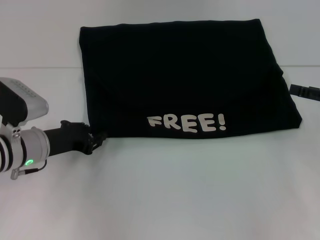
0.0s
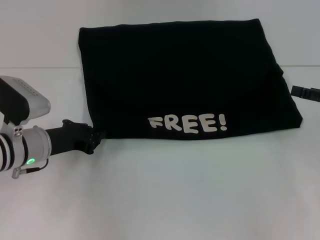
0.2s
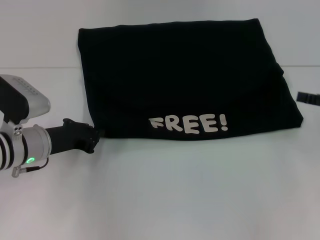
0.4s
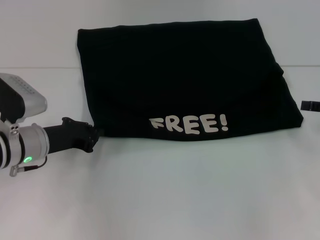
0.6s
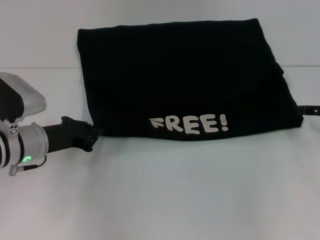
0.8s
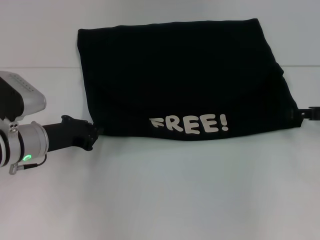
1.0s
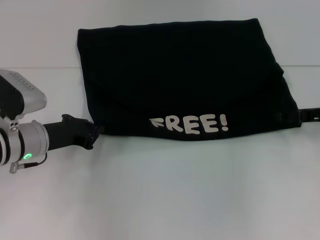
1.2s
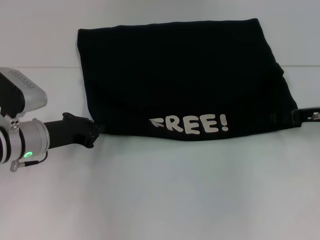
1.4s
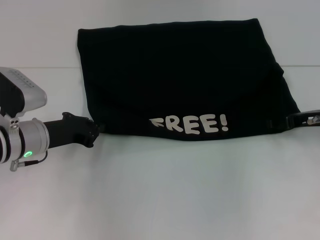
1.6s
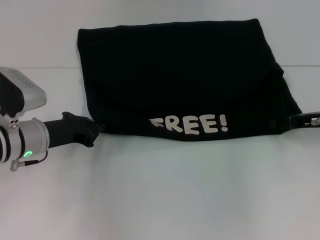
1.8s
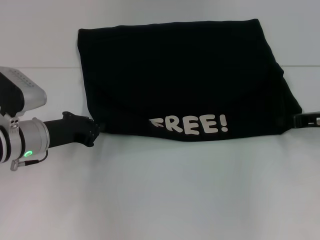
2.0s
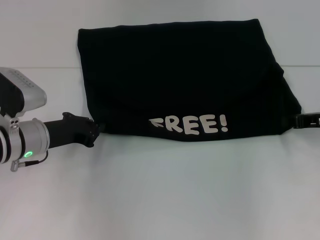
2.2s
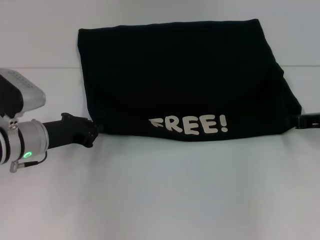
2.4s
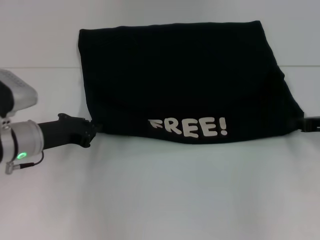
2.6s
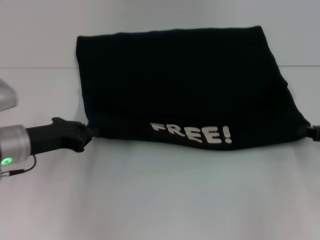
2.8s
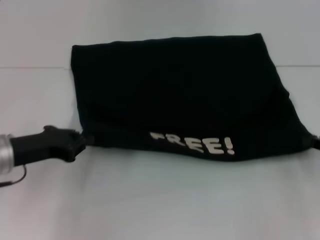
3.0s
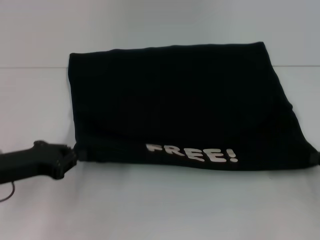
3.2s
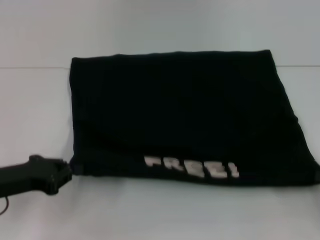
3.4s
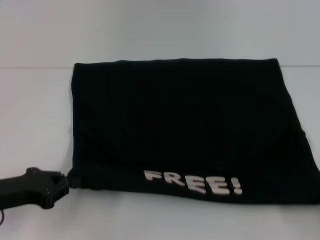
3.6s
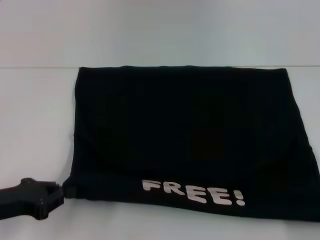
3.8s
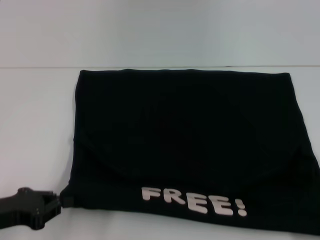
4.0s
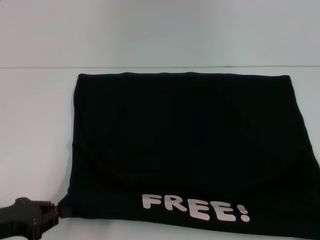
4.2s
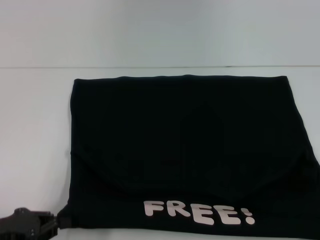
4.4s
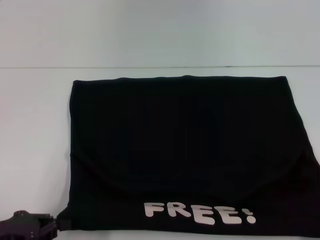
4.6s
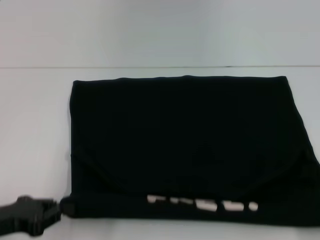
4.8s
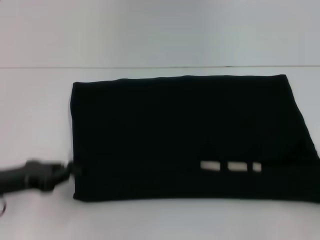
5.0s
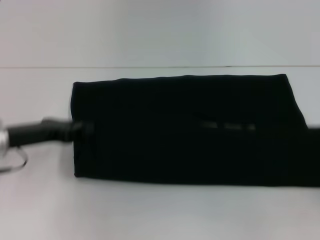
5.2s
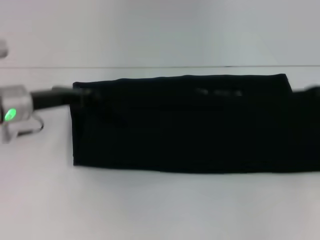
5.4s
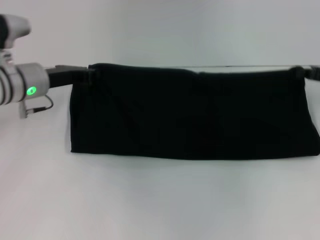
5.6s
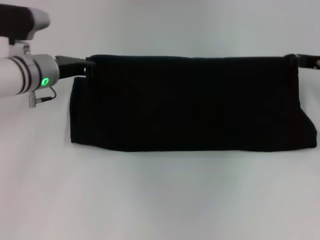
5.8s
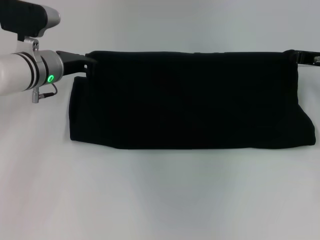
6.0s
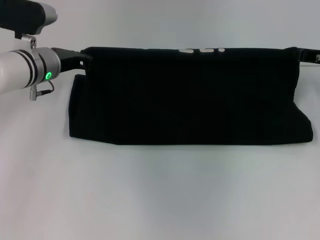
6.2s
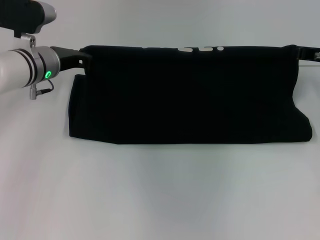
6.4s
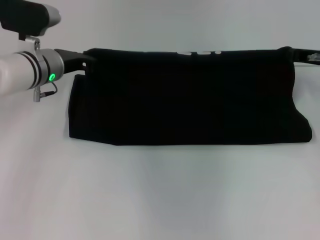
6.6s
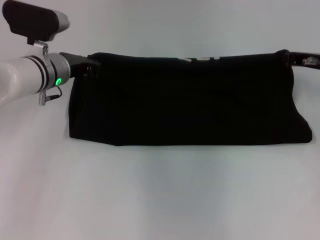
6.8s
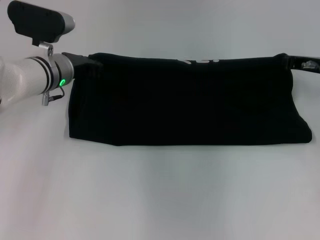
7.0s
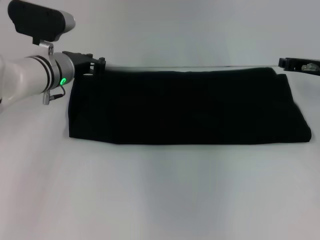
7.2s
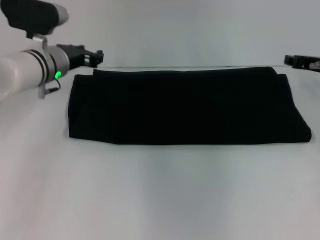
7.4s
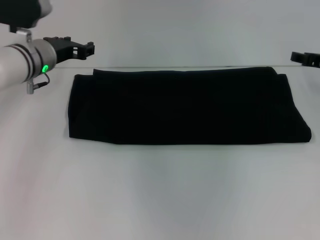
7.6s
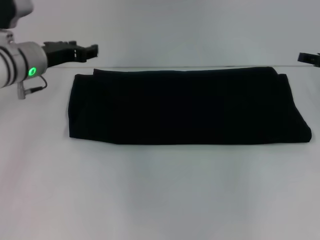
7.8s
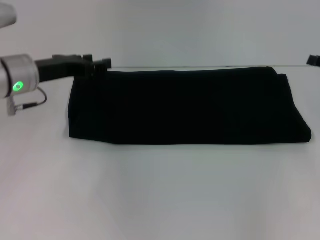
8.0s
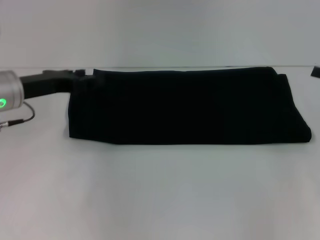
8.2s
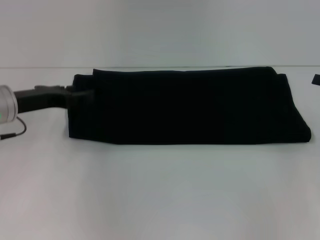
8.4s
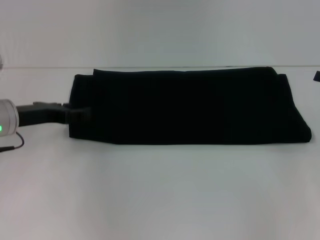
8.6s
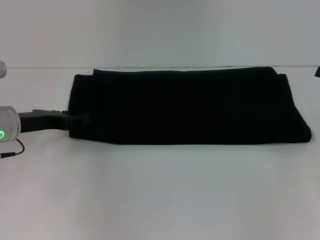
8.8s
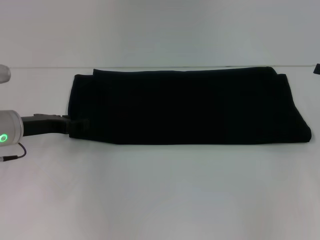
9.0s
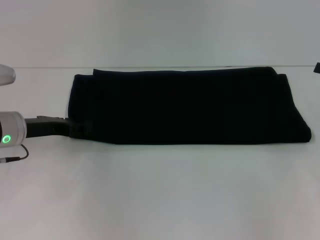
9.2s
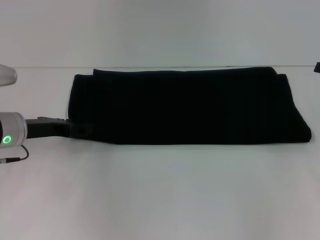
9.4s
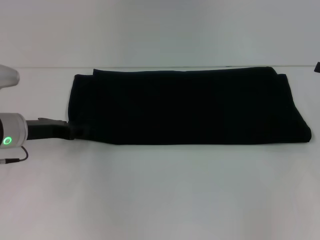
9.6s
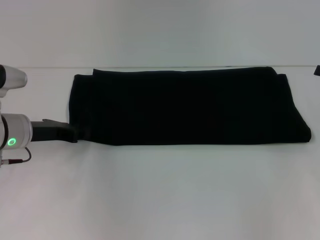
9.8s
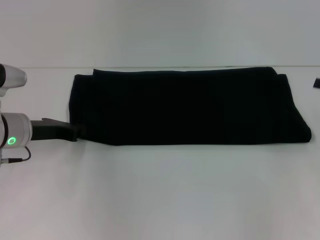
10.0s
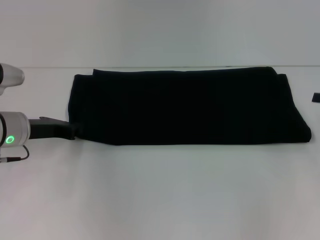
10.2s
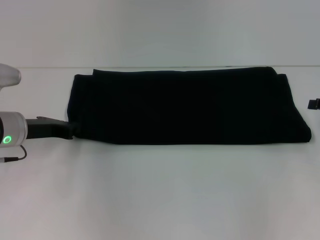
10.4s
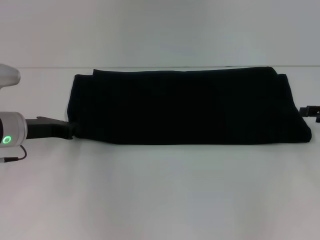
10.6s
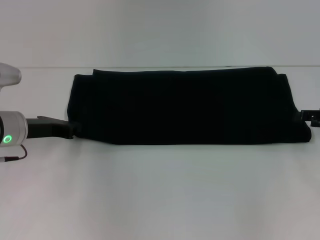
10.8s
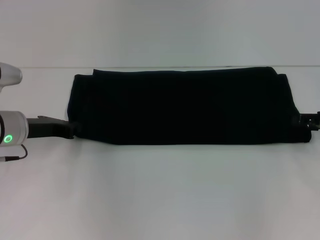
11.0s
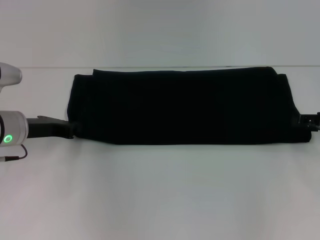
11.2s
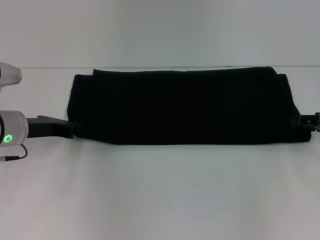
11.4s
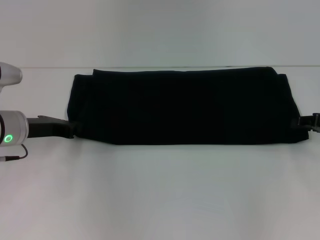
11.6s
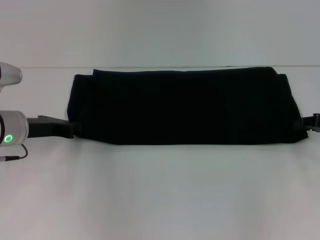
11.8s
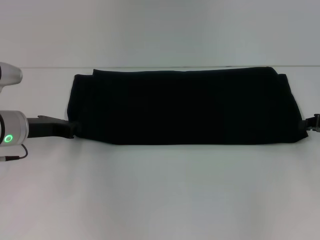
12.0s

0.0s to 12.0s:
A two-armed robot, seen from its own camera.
Step, 0.0s to 4.4s: Pull the clothes with your left hand.
Step, 0.0s to 4.4s: Pull the clothes with your right hand.
Step, 4.6s to 7.2s: Fold the clothes with your right hand.
0.0s to 1.6s: The right gripper shifts some 5 cm to the left; the left gripper closes up.
1.6s to 3.0s: The right gripper travels backward and to the right by roughly 10 cm, and closes its fingers. Meanwhile the left gripper ends up some 5 cm from where it was.
3.0s to 4.4s: The left gripper goes roughly 10 cm backward. Meanwhile the right gripper moves backward, about 15 cm.
4.4s to 6.0s: Both grippers travel together forward, roughly 30 cm.
6.0s to 7.6s: The left gripper opens up. The right gripper opens up.
7.6s to 9.0s: The left gripper moves backward and to the left, roughly 10 cm, while the right gripper moves backward and to the right, roughly 10 cm.
9.0s to 10.4s: The left gripper closes.
10.4s to 12.0s: The right gripper closes up.

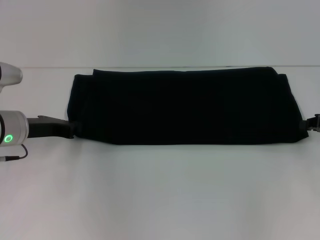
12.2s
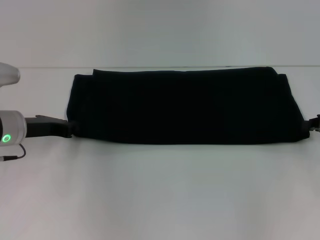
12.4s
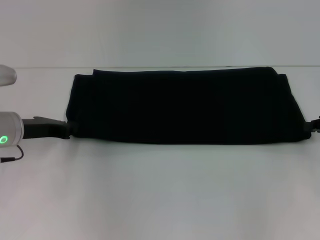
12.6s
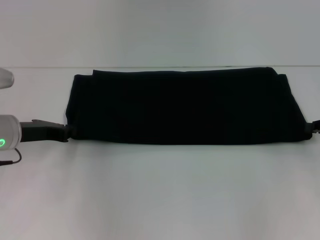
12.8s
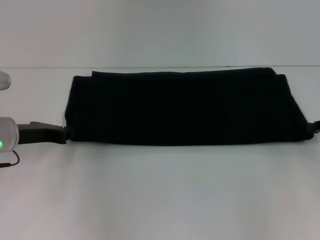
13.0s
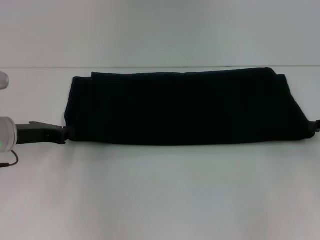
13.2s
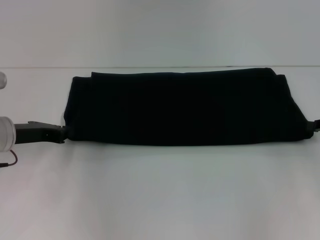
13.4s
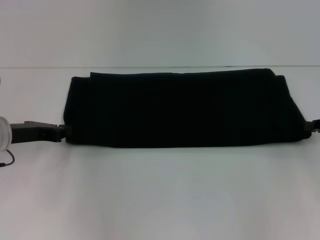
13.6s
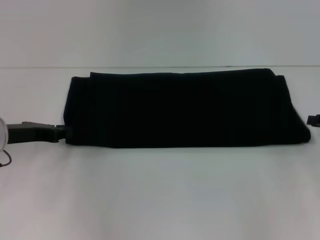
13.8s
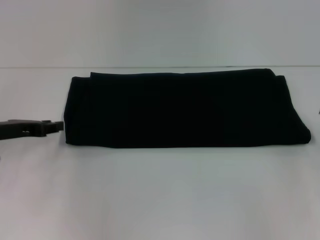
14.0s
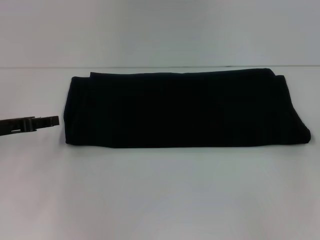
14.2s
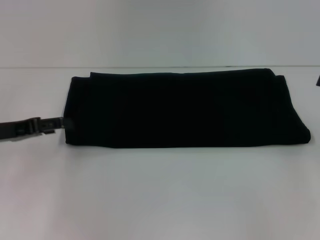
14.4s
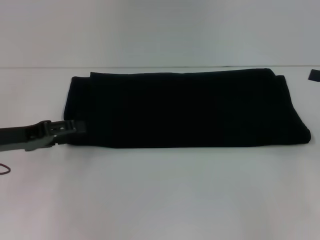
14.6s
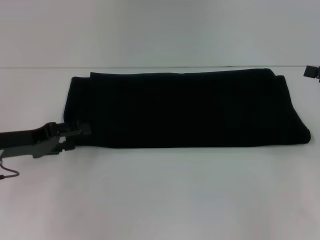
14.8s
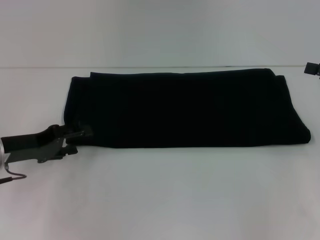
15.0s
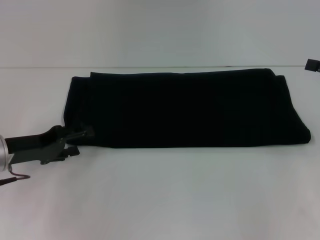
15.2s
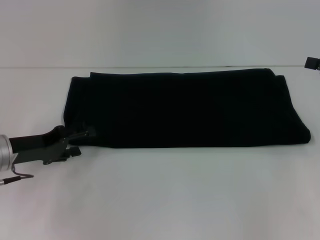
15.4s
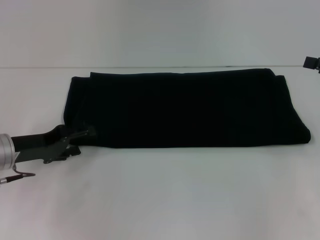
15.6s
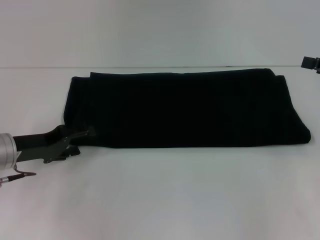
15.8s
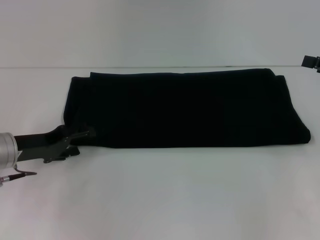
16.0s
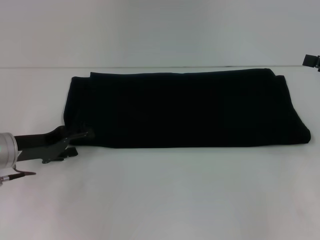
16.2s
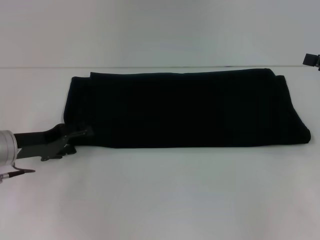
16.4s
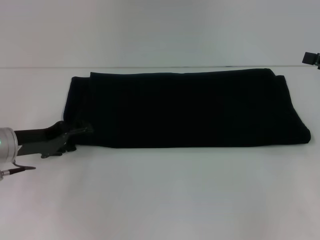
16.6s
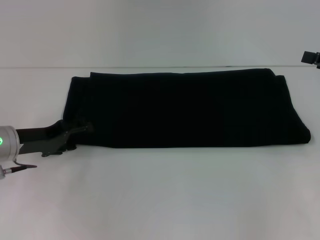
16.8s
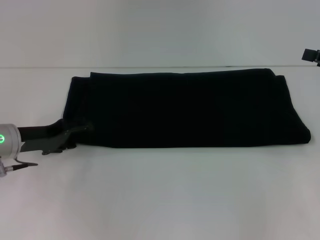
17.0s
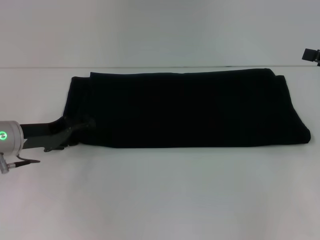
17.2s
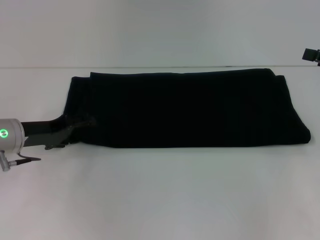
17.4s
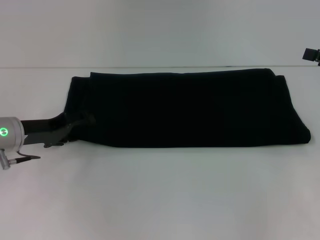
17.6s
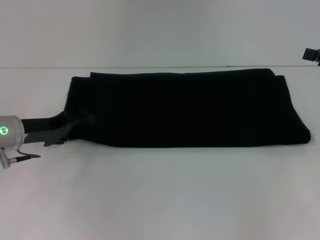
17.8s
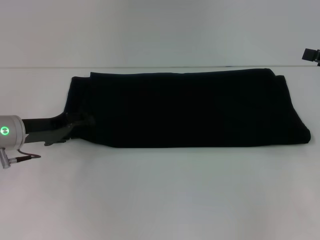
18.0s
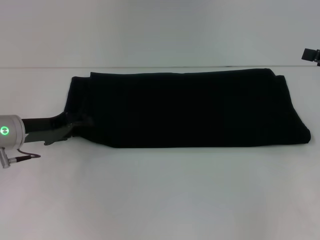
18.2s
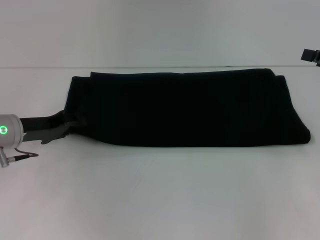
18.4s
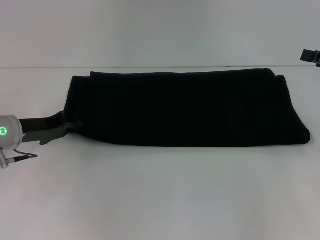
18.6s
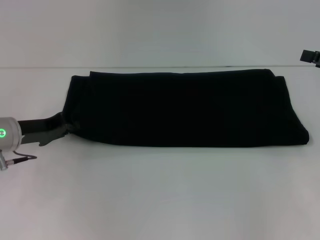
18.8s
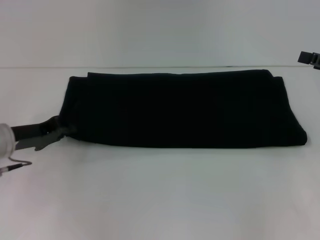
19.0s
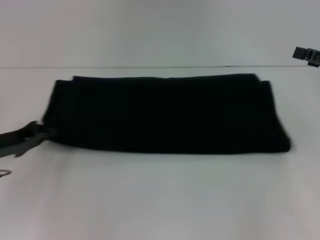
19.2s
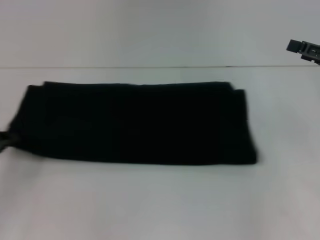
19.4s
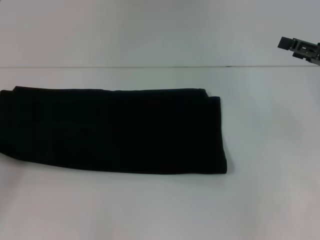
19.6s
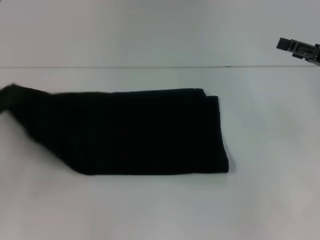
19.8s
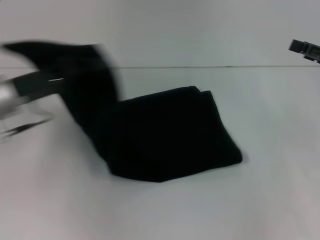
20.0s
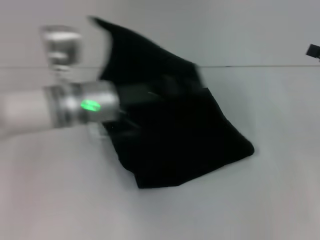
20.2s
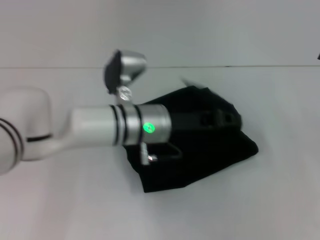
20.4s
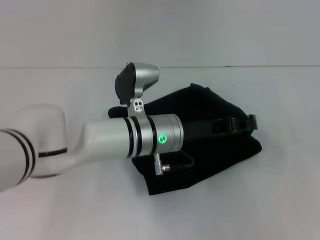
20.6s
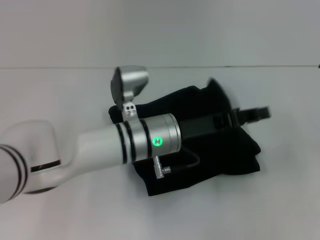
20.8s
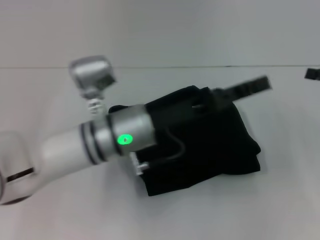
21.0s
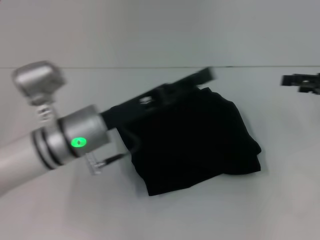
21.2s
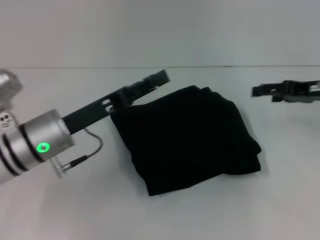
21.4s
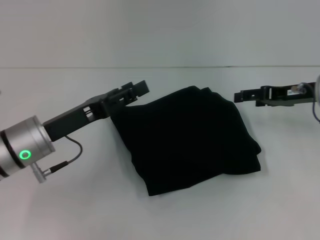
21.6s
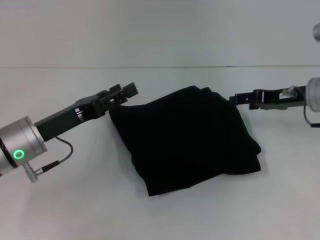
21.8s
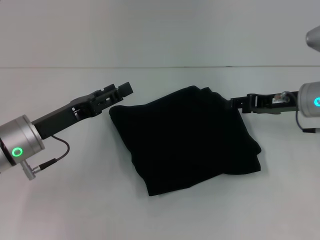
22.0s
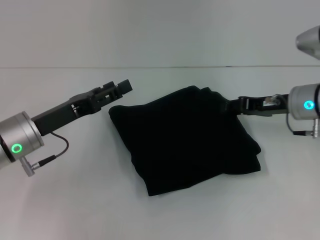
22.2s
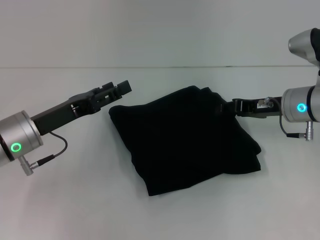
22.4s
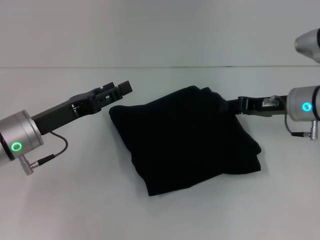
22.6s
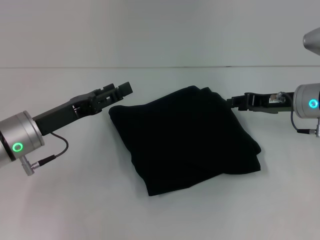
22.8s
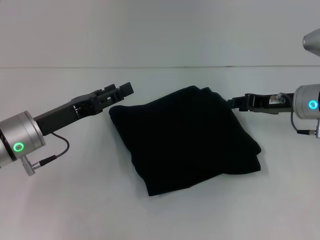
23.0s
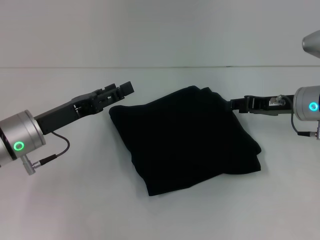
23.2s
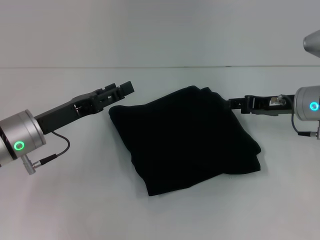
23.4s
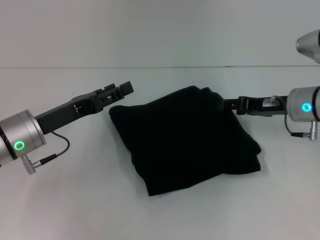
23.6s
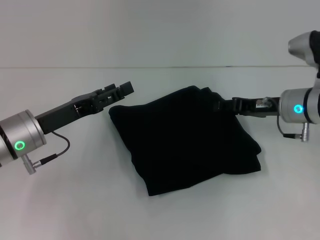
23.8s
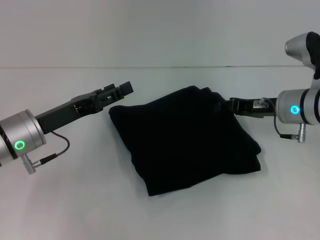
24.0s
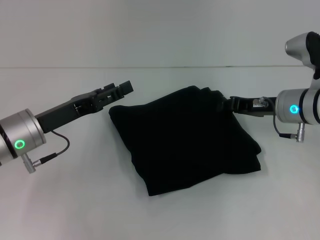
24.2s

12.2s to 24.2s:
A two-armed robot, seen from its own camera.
Step, 12.2s to 20.8s: Fold the clothes with your left hand.
12.2s to 13.8s: The grippers stay close to where they were, moving slightly.
13.8s to 15.2s: The left gripper opens up.
15.2s to 18.2s: The grippers move only a little.
18.2s to 19.8s: The left gripper shifts some 10 cm to the left and backward, and closes its fingers.
19.8s to 21.2s: The left gripper is displaced to the right by approximately 25 cm, and opens up.
21.2s to 22.6s: The left gripper heads to the left, covering approximately 10 cm. Meanwhile the right gripper shifts roughly 10 cm to the left and downward, and closes its fingers.
22.6s to 24.2s: The grippers stay close to where they were, moving slightly.
